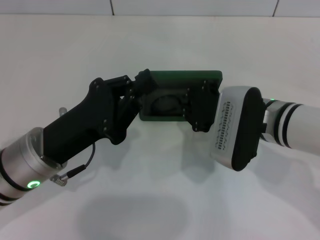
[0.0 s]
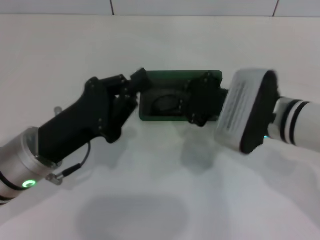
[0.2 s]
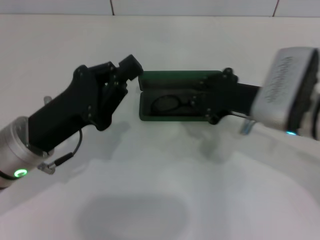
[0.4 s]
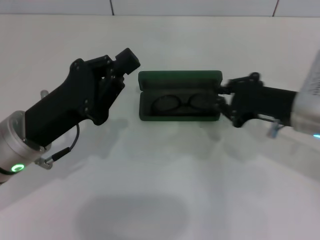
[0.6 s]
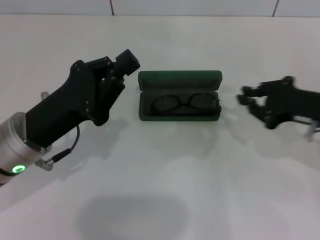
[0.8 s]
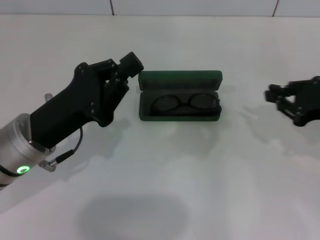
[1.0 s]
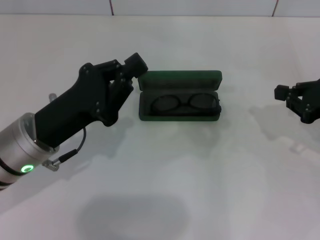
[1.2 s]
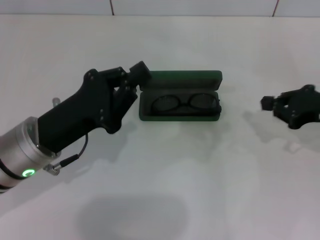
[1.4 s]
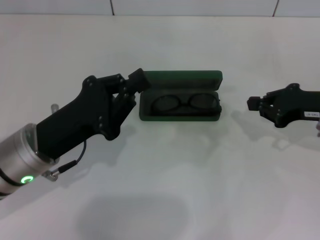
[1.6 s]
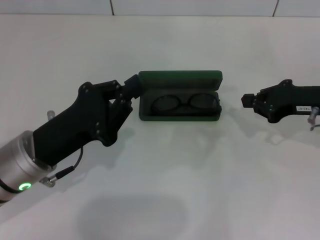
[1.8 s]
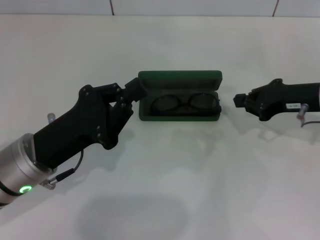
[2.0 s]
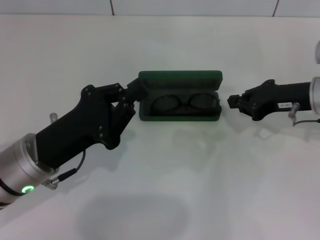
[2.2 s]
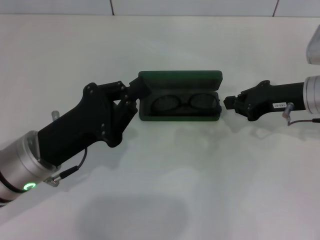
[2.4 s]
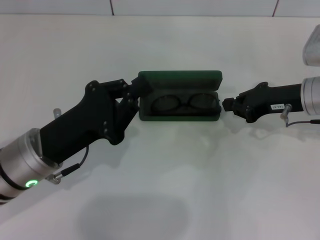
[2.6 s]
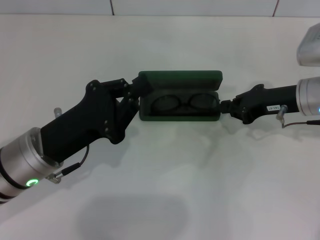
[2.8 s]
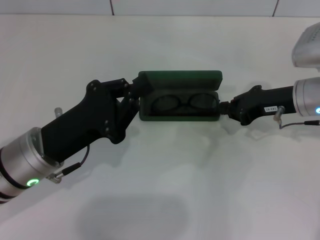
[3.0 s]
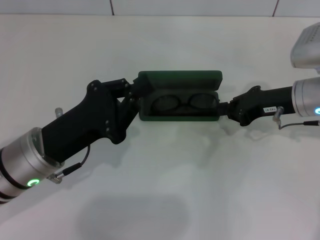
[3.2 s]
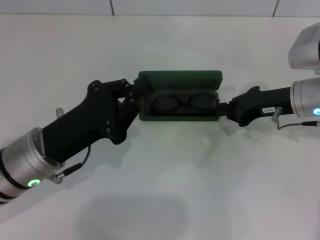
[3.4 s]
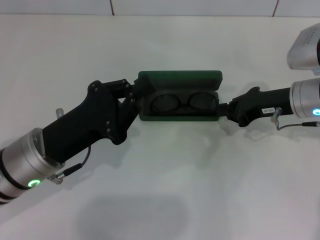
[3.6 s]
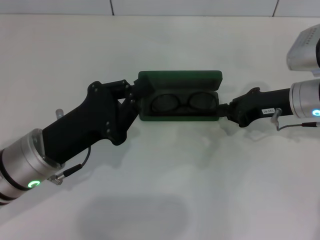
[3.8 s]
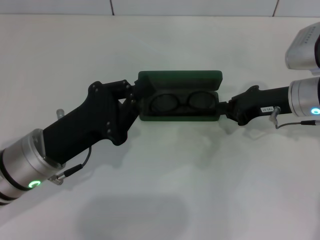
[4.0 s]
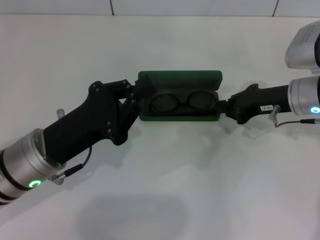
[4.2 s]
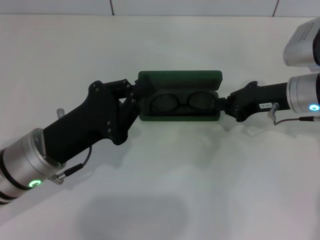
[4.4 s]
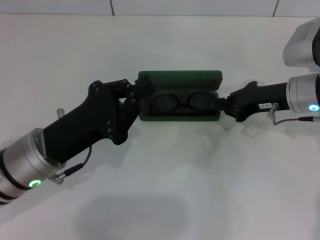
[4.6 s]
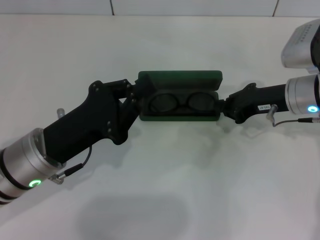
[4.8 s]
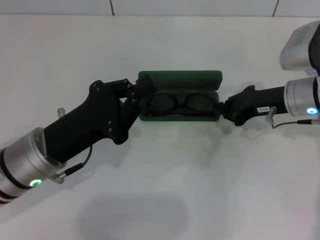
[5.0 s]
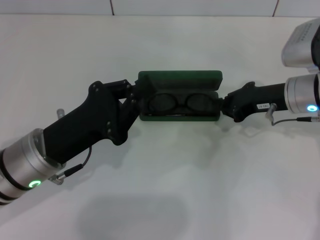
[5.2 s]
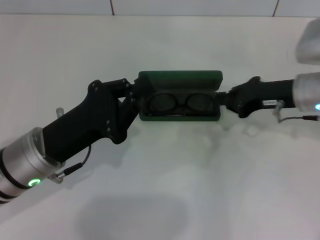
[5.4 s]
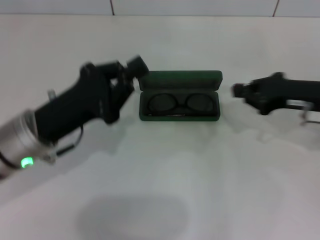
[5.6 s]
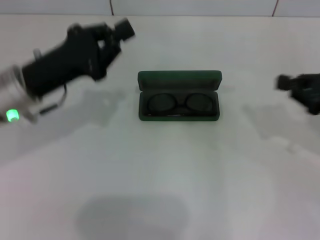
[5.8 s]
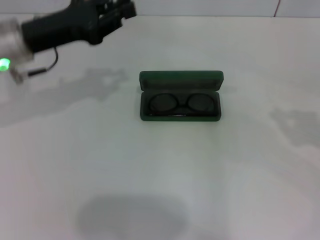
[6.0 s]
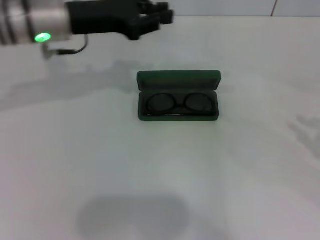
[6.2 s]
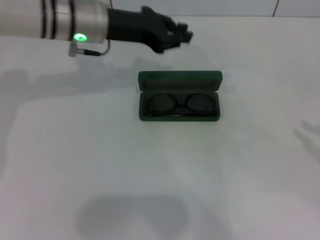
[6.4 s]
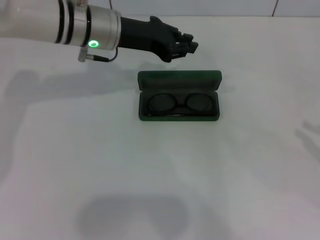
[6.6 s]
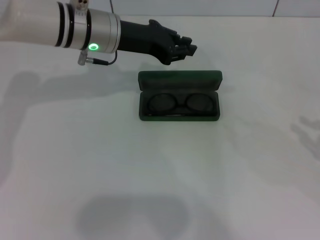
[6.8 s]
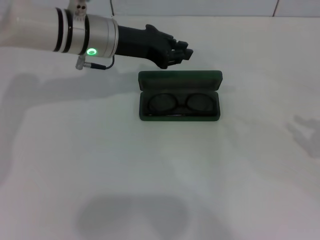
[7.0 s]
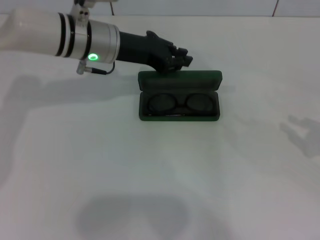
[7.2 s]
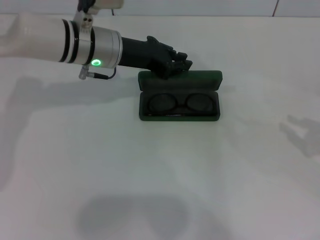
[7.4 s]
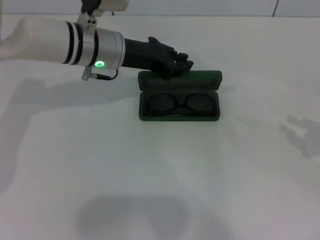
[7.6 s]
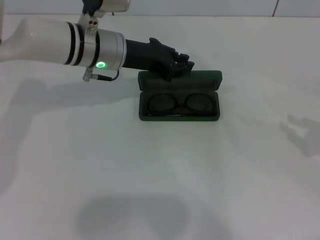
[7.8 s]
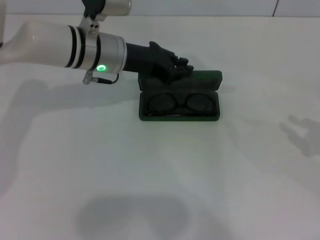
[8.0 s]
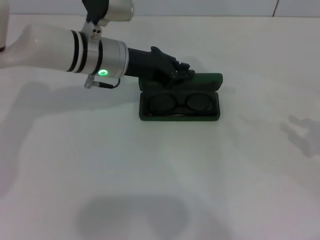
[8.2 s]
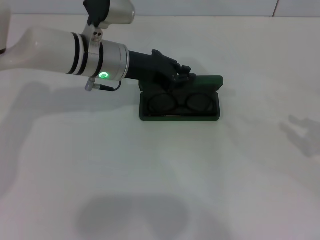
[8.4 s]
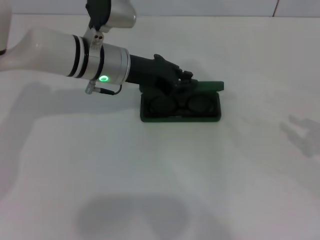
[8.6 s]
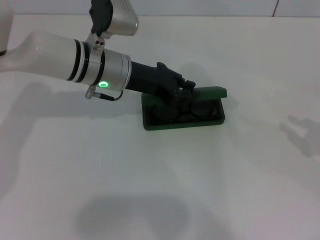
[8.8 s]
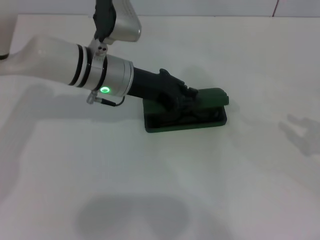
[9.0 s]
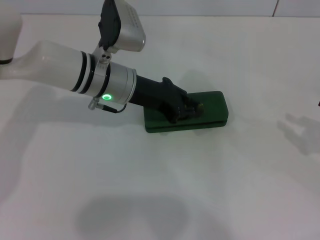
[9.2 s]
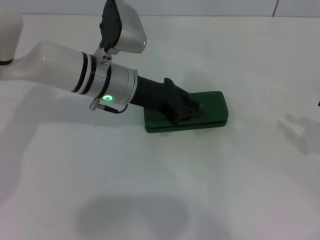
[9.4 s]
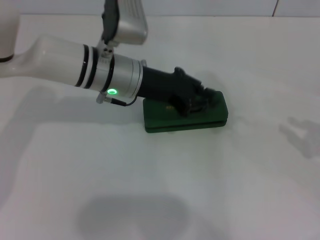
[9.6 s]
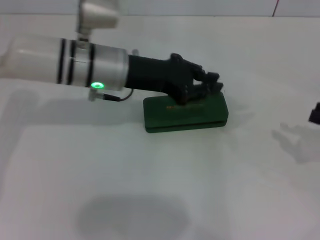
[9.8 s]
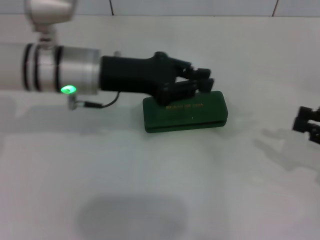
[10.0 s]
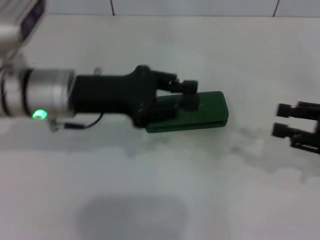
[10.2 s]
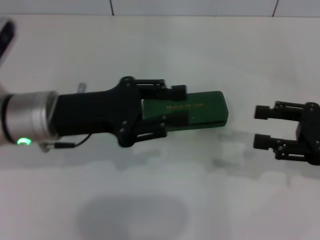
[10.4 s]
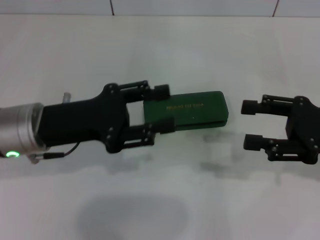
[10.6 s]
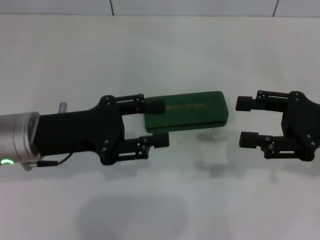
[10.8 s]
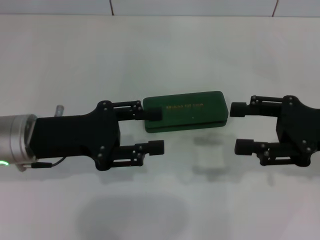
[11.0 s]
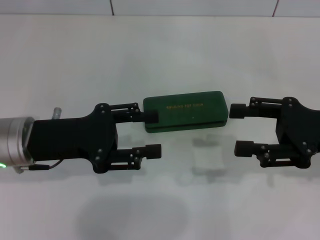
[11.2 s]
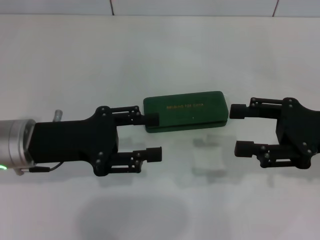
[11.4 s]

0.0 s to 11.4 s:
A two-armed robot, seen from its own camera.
Step, 0.0 to 9.0 s: Close the glasses case with your left hand.
0.0 to 1.4 s: The right gripper heads to the right, covering some 15 cm.
1.4 to 2.8 s: The right gripper travels to the left by about 5 cm.
2.8 to 4.2 s: Neither gripper changes place.
4.2 to 5.6 s: The right gripper changes place by roughly 5 cm.
5.6 to 7.2 s: The right gripper shifts some 15 cm to the right and backward; the left gripper heads forward, covering approximately 15 cm.
7.2 to 8.6 s: The grippers make only small movements.
8.6 to 10.0 s: The left gripper goes roughly 5 cm backward.
10.0 to 11.4 s: The right gripper heads to the left, covering roughly 10 cm, while the left gripper is displaced backward and to the left by approximately 10 cm, and opens up.

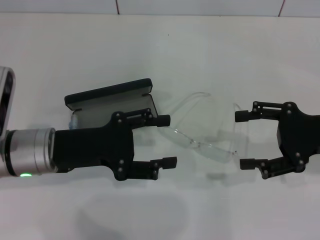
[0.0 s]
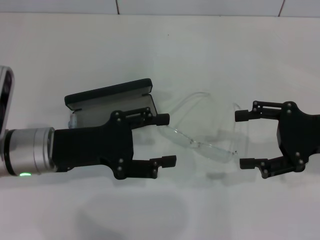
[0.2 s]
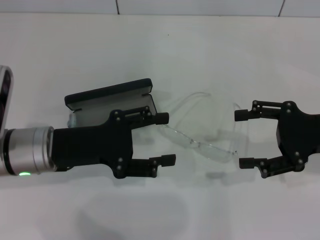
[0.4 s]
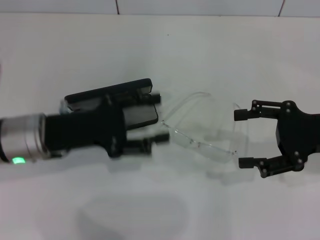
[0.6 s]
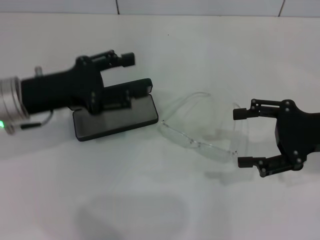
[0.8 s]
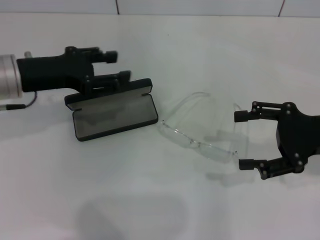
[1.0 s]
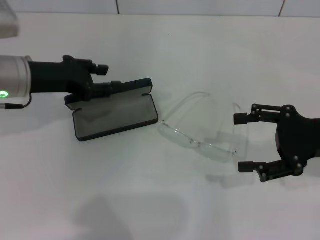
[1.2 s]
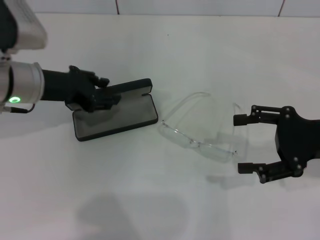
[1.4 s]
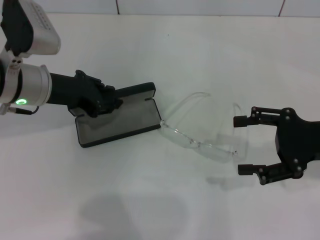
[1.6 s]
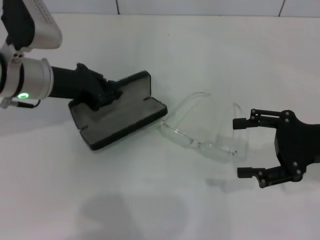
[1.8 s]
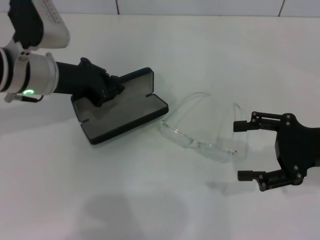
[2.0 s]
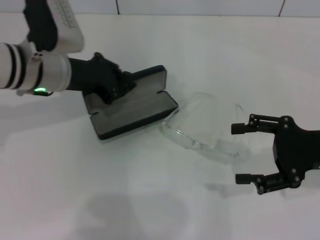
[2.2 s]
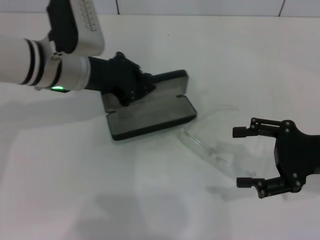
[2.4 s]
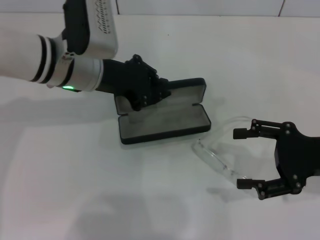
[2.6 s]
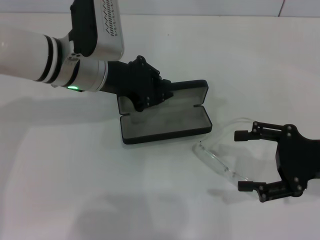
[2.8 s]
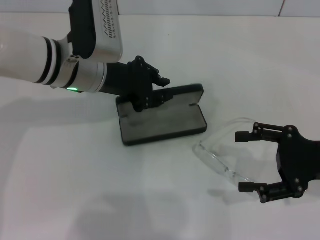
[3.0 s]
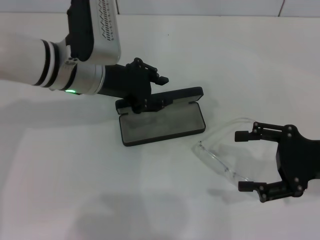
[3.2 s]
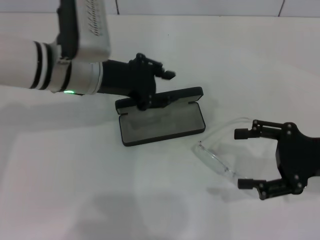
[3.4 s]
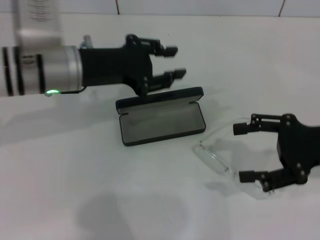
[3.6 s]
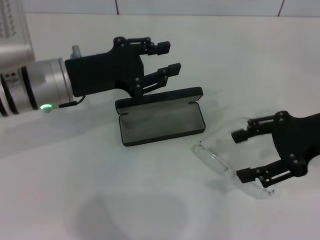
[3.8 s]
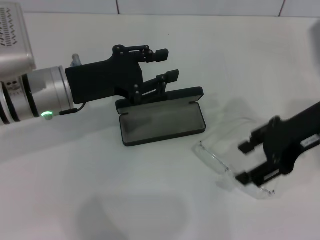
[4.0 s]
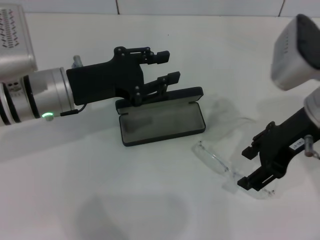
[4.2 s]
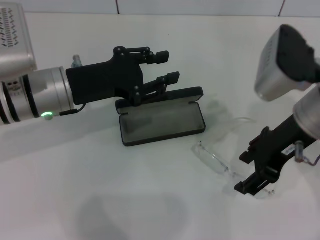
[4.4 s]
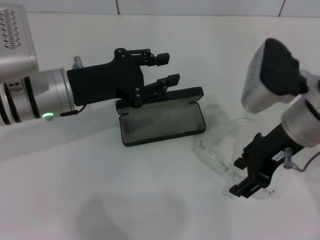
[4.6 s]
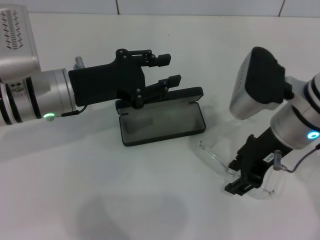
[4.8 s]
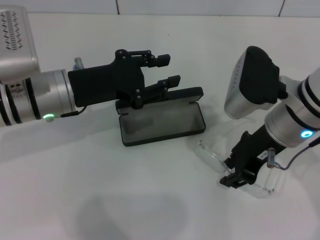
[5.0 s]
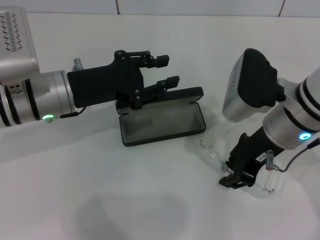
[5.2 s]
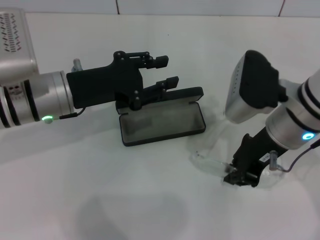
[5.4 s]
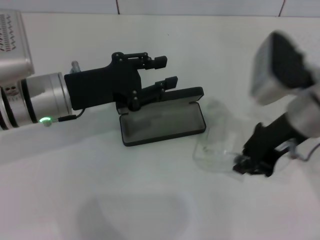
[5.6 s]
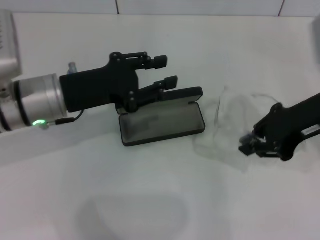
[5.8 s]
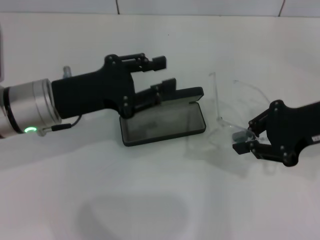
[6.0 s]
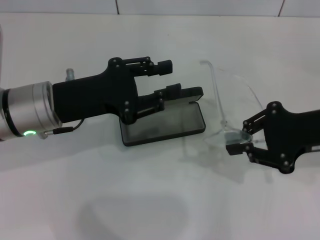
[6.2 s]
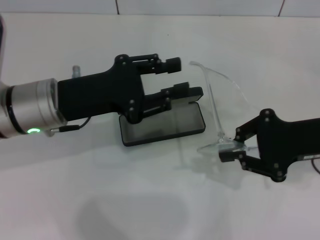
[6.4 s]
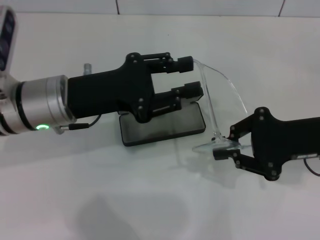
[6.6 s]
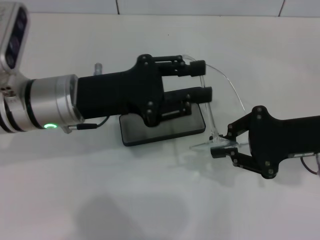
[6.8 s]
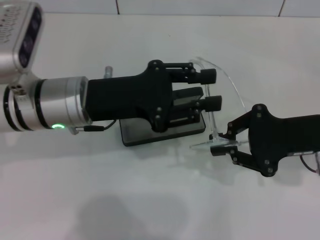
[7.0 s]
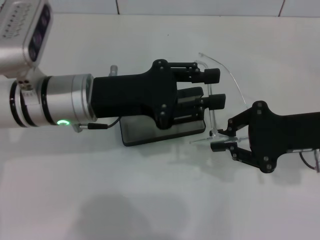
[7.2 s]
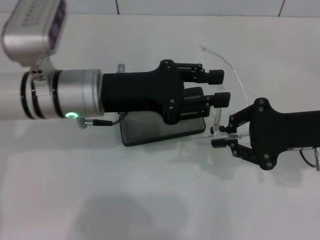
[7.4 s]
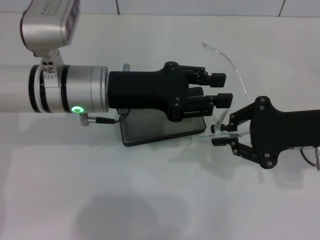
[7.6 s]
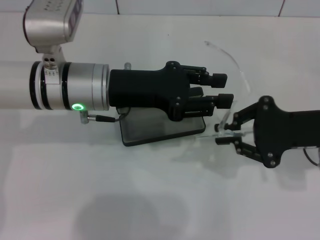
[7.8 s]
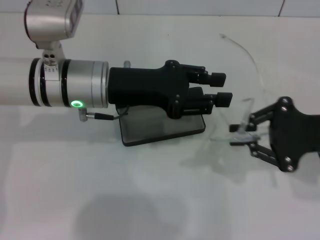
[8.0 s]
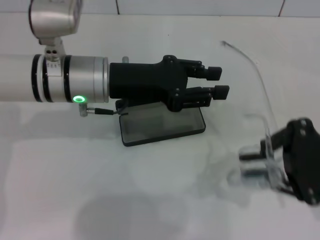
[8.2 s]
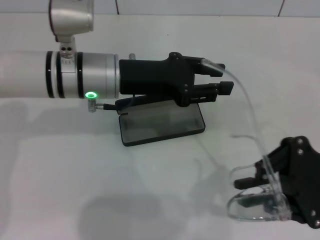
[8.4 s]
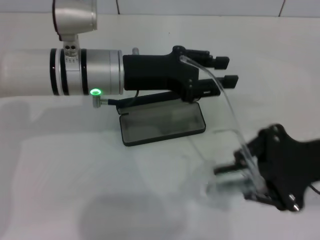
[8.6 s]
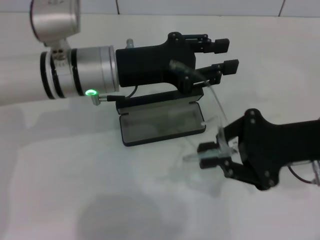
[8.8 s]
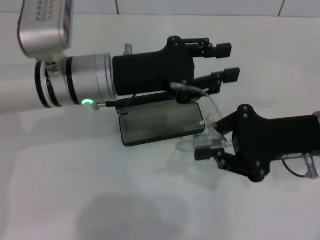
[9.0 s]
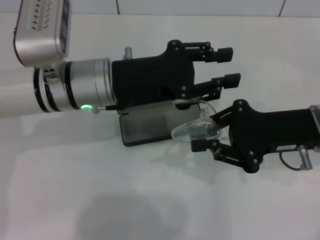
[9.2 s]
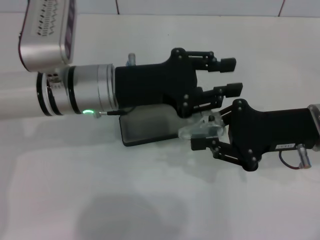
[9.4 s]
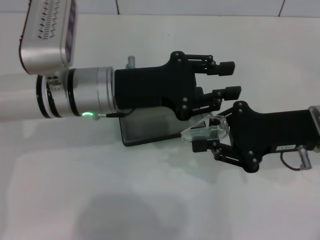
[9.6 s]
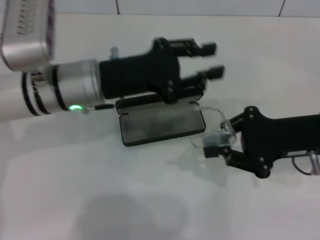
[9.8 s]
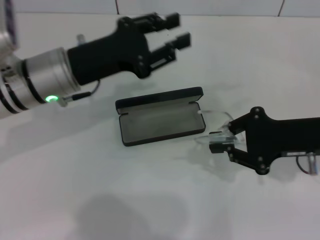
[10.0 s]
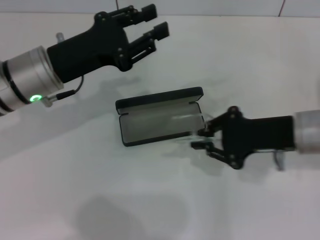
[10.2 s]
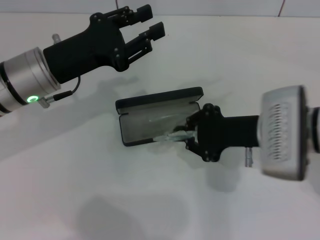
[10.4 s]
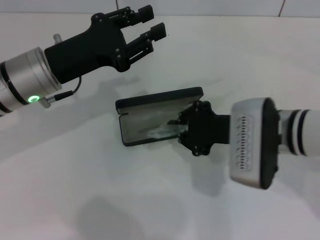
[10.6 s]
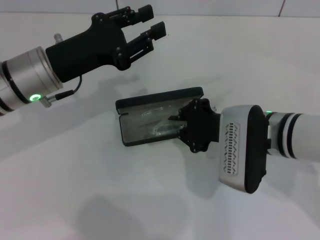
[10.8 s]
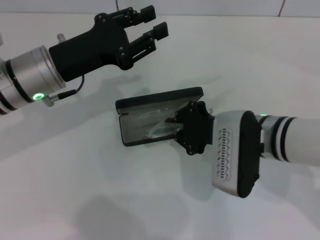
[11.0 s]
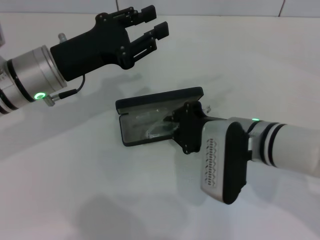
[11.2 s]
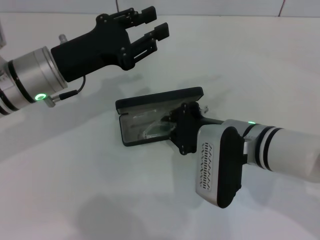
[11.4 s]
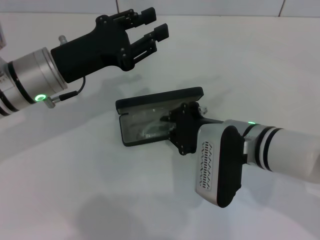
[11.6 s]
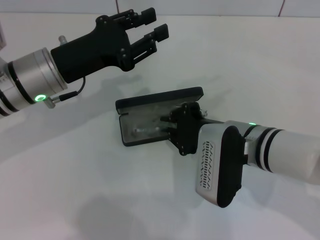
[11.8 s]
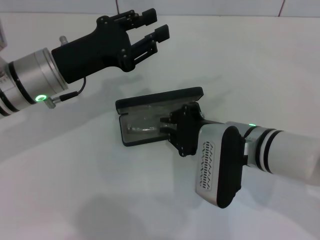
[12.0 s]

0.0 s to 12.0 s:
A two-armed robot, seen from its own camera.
Step, 0.0 to 1.6 s: Grab the glasses case with your left hand.
Step, 1.8 to 2.8 s: Place the glasses case in the center of the table with your left hand.
Step, 3.2 to 5.2 s: Grab the eyeglass frame with your right hand.
Step, 5.4 to 9.4 s: Fold the frame with your left hand.
0.0 to 1.6 s: The left gripper goes about 10 cm forward, and closes.
1.6 to 3.0 s: The left gripper is displaced to the right by some 5 cm.
3.0 to 4.4 s: The left gripper ends up some 5 cm from where it was. Meanwhile the right gripper shifts some 15 cm to the left and upward.
4.4 to 6.0 s: The right gripper shifts approximately 5 cm to the right, and closes up.
6.0 to 7.6 s: The left gripper heads to the right, covering some 5 cm.
9.0 to 10.4 s: The two grippers go some 5 cm to the left.
10.4 to 12.0 s: The right gripper is displaced to the left by roughly 5 cm.
